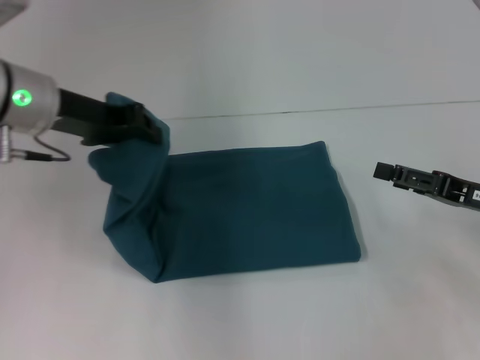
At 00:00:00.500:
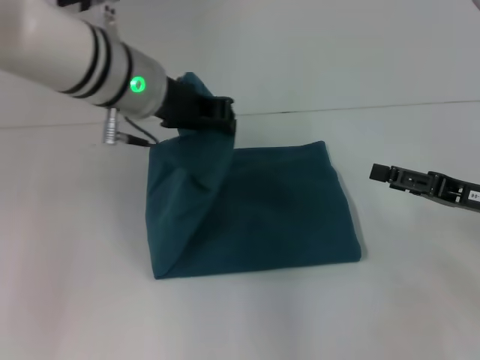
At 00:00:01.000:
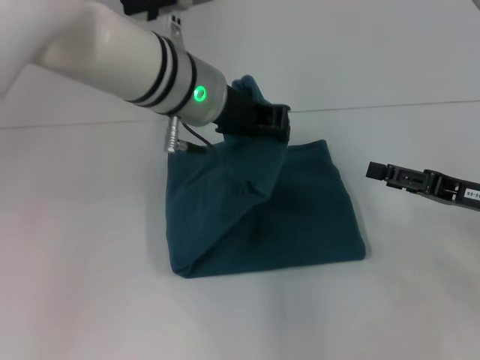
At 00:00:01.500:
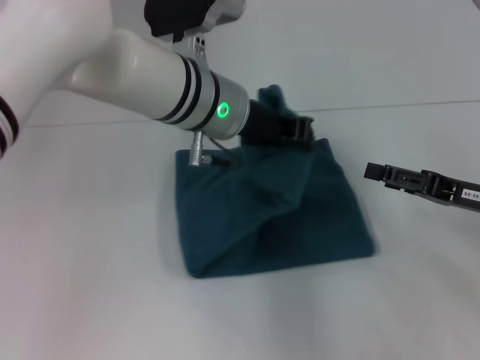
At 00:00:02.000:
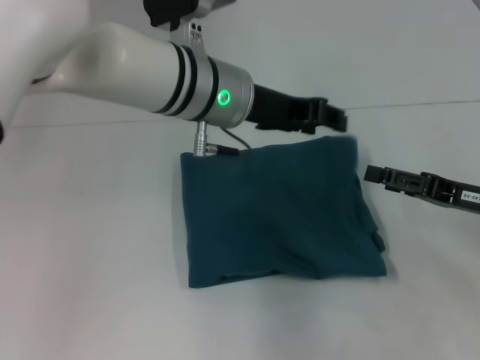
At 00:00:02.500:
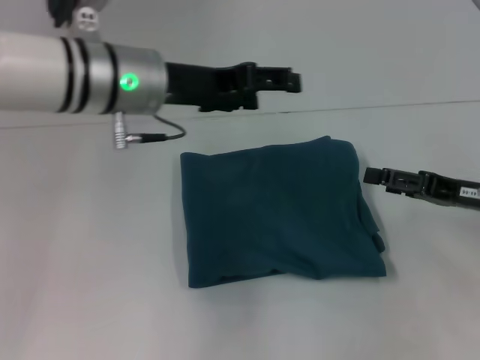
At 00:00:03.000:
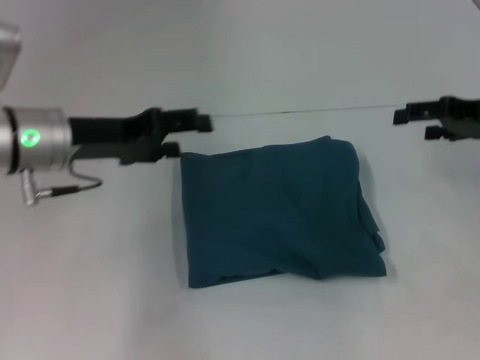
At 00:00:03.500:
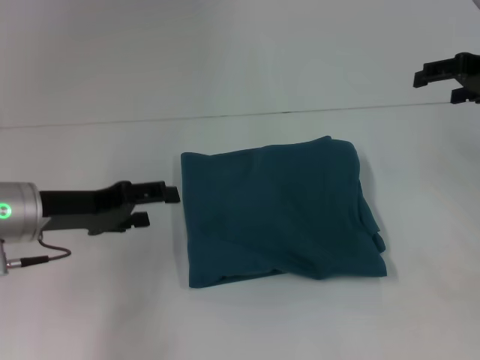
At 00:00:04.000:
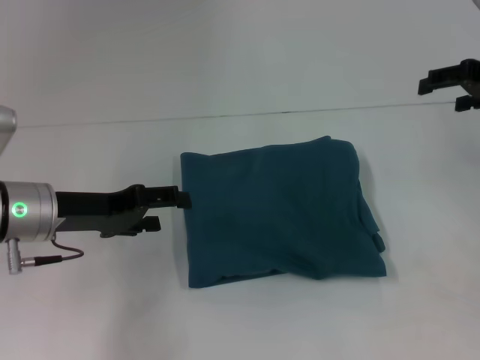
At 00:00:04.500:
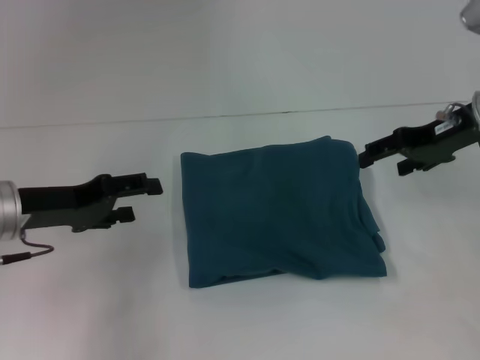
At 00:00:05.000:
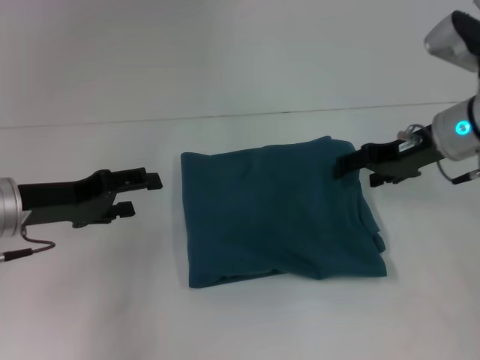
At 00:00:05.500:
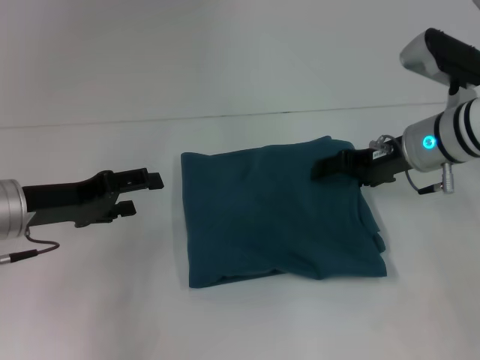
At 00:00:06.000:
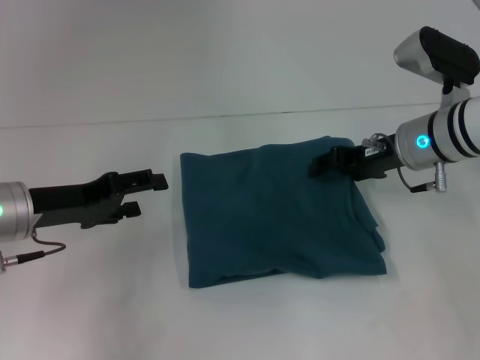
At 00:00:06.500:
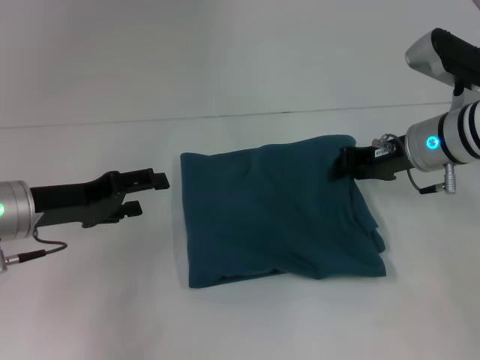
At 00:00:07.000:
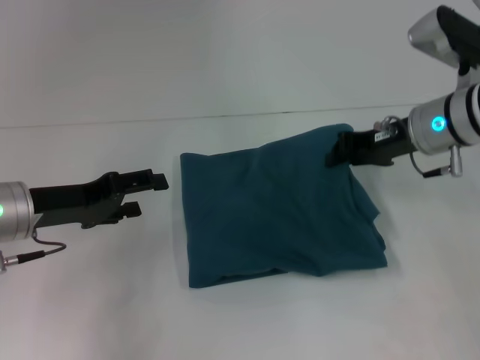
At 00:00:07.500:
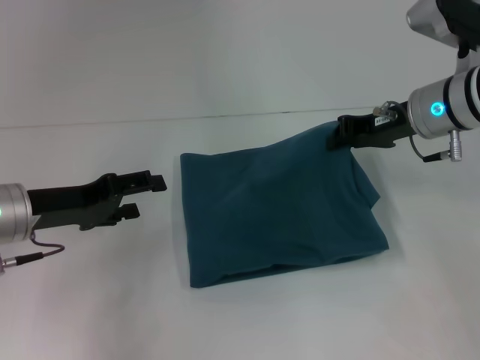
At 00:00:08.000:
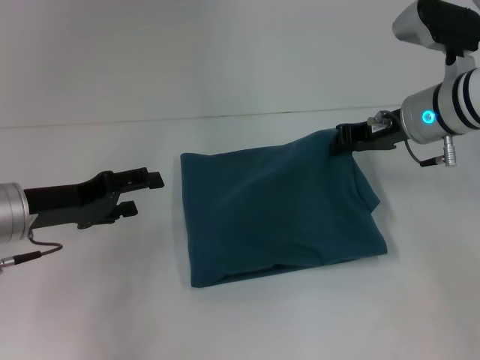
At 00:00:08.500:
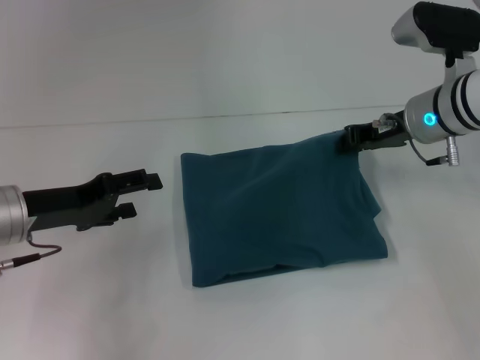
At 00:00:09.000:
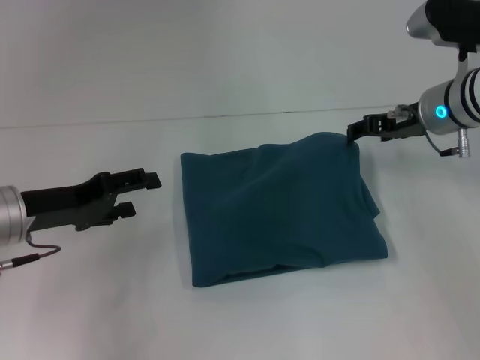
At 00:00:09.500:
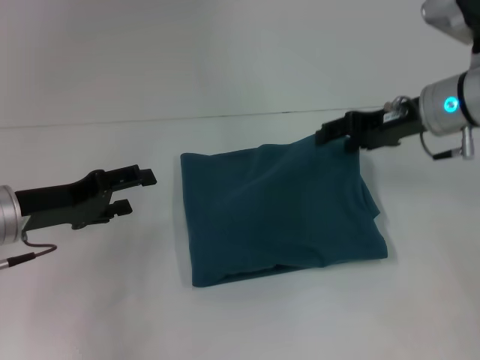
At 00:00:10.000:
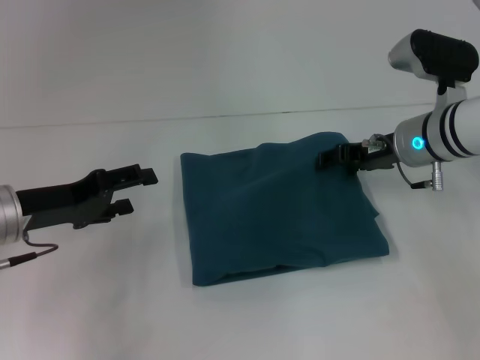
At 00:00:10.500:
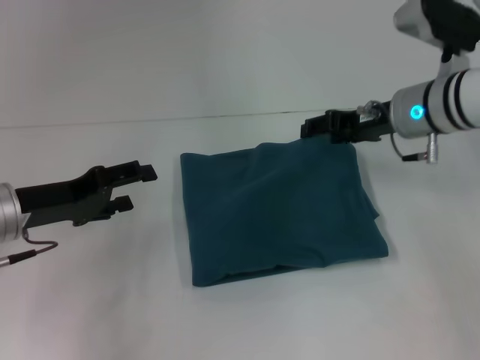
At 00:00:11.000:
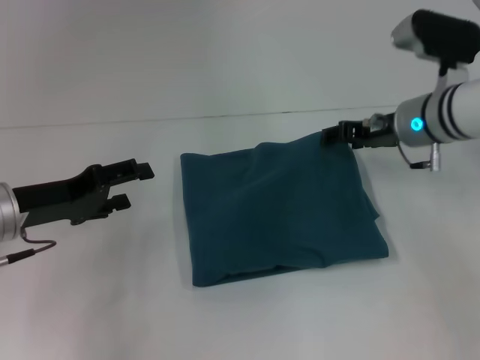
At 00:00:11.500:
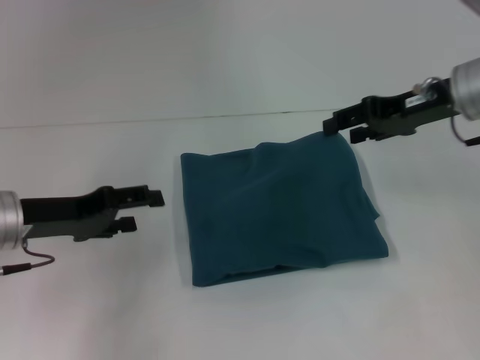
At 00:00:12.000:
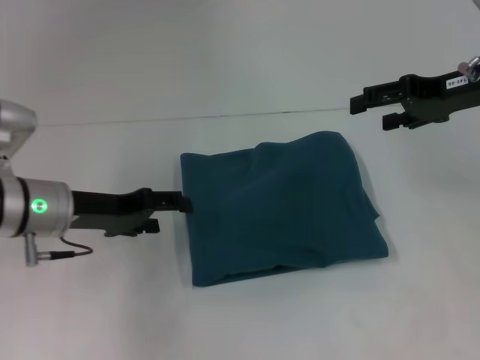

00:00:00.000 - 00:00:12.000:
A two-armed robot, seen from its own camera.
Step, 00:00:00.000 - 00:00:02.000: Fold the clothes to the left.
00:00:00.000 - 00:00:02.000: The left gripper shifts approximately 15 cm to the right.
00:00:02.000 - 00:00:04.000: The left gripper shifts roughly 20 cm to the left and downward, and opens, while the right gripper shifts approximately 15 cm upward and forward.
00:00:04.000 - 00:00:06.000: The right gripper travels to the left and downward by about 15 cm.
00:00:06.000 - 00:00:08.000: The right gripper closes.
00:00:08.000 - 00:00:10.000: The right gripper opens.
00:00:10.000 - 00:00:12.000: The right gripper moves upward and to the right, about 10 cm.

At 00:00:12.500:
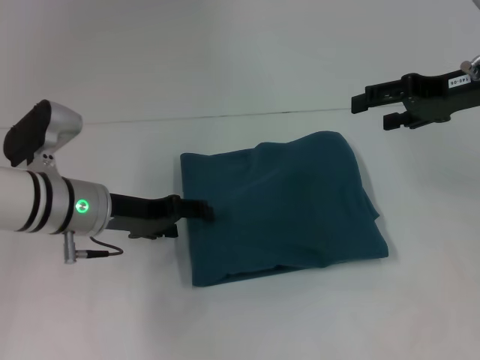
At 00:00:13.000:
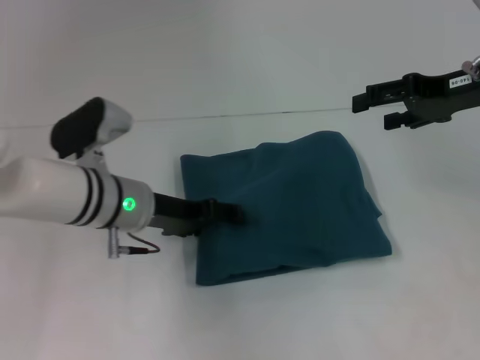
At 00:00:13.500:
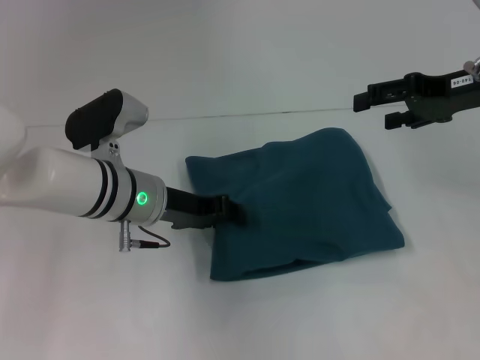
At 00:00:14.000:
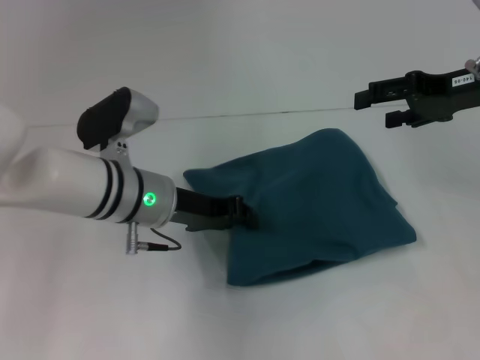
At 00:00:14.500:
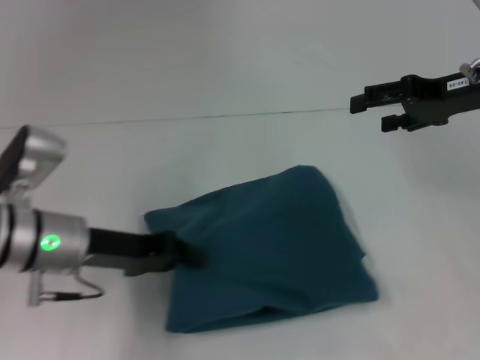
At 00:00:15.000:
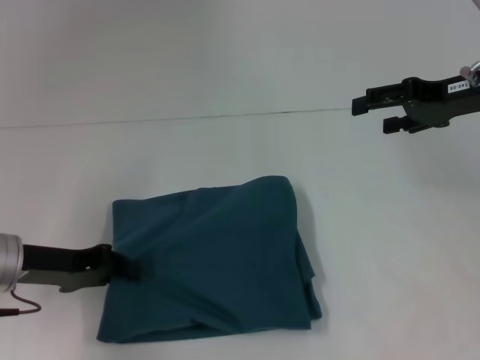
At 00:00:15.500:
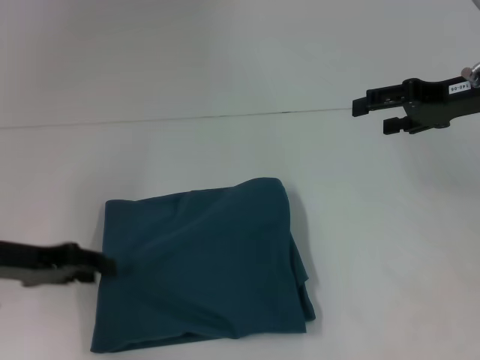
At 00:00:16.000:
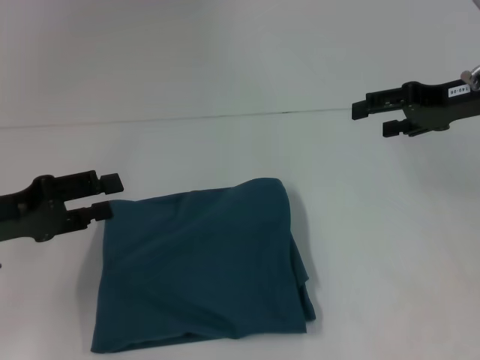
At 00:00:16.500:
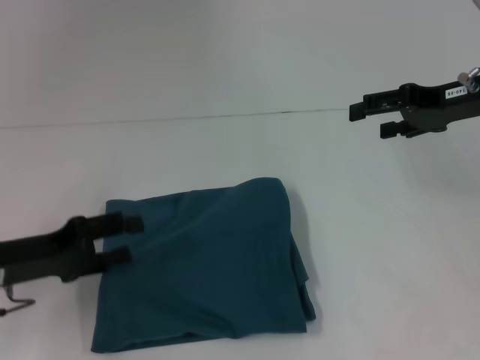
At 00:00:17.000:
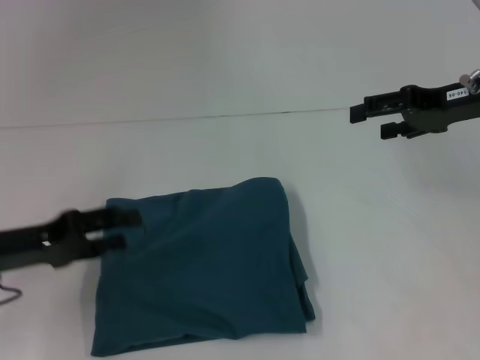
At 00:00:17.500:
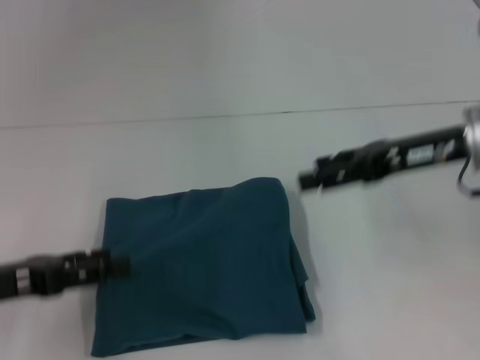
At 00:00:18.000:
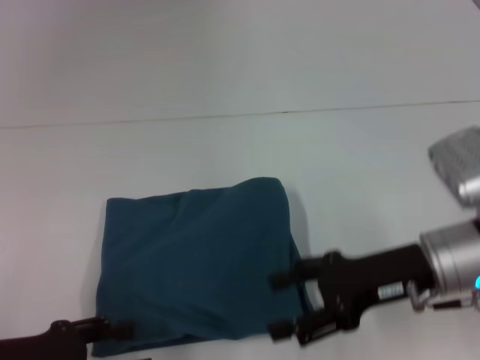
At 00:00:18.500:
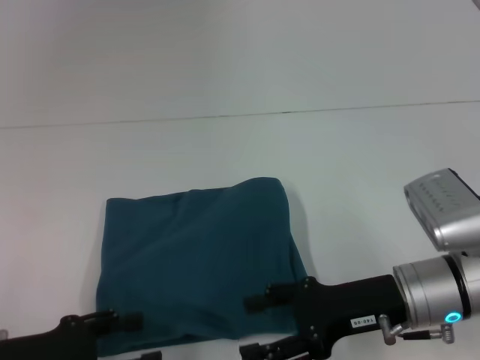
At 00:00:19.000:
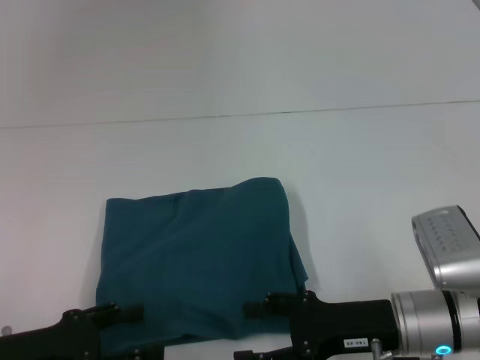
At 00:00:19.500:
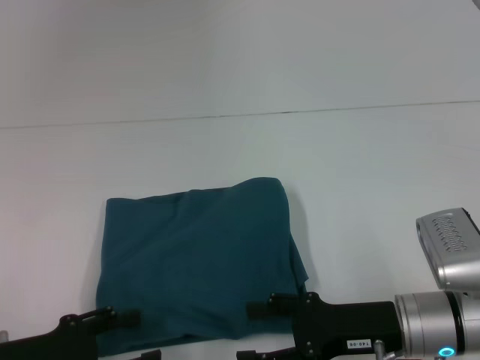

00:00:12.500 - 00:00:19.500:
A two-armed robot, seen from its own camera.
00:00:12.500 - 00:00:14.500: The left gripper goes to the right and returns, roughly 5 cm each way, and closes up.
00:00:14.500 - 00:00:16.000: The left gripper moves to the left, roughly 10 cm, and opens its fingers.
00:00:16.000 - 00:00:17.500: The right gripper is displaced to the left by approximately 5 cm.
00:00:17.500 - 00:00:19.500: The right gripper is displaced downward and backward by about 15 cm; the left gripper heads downward, covering approximately 5 cm.

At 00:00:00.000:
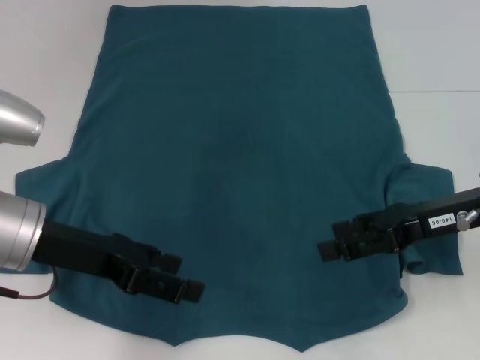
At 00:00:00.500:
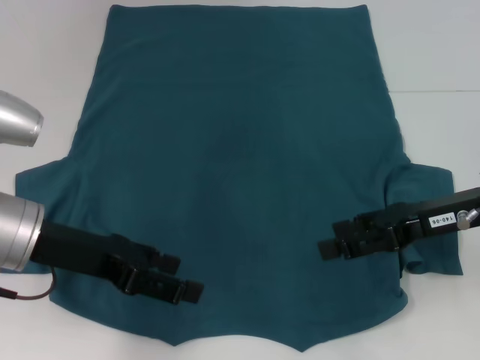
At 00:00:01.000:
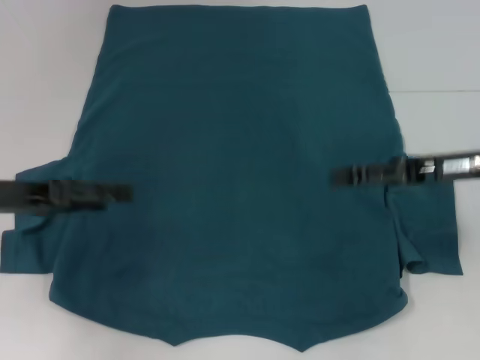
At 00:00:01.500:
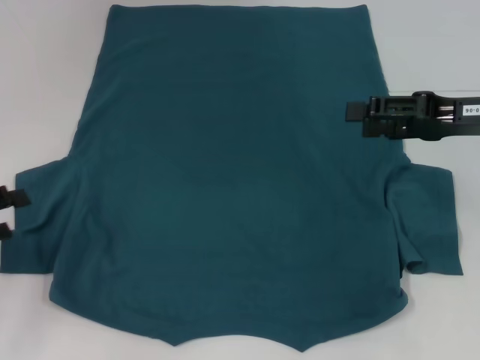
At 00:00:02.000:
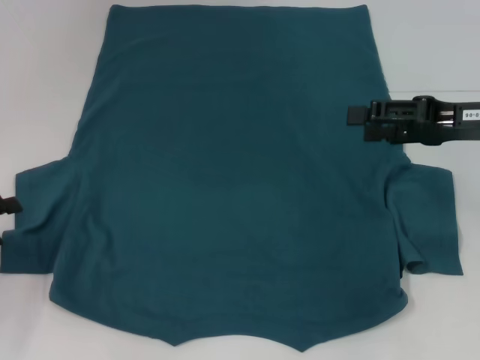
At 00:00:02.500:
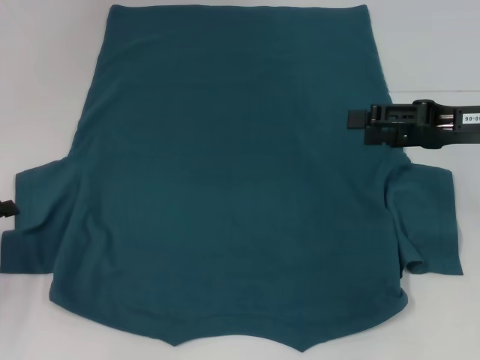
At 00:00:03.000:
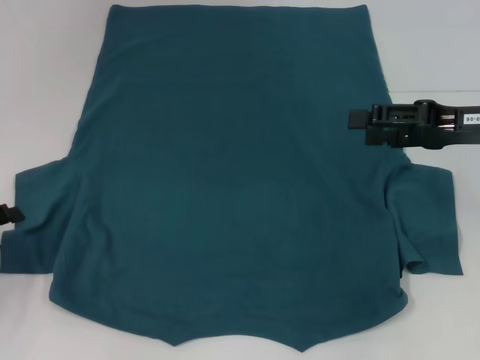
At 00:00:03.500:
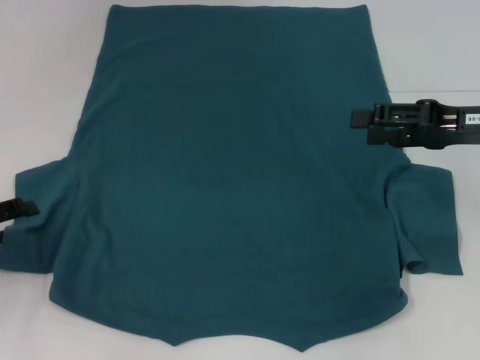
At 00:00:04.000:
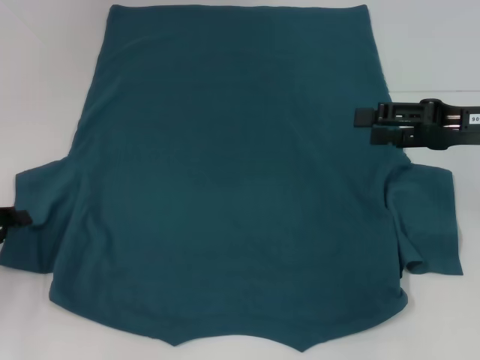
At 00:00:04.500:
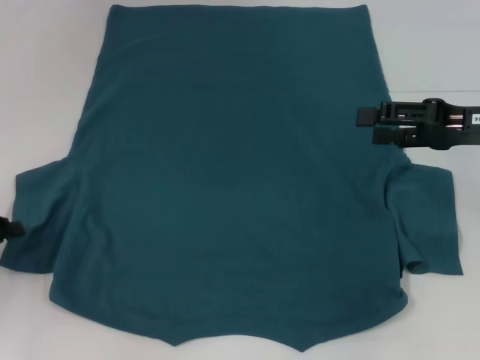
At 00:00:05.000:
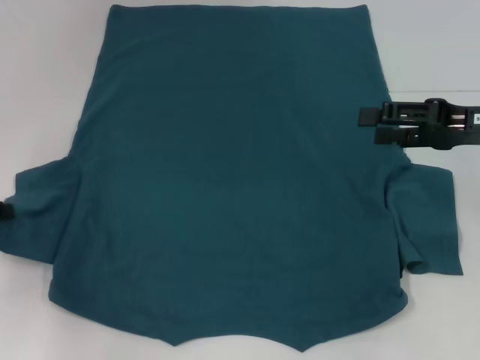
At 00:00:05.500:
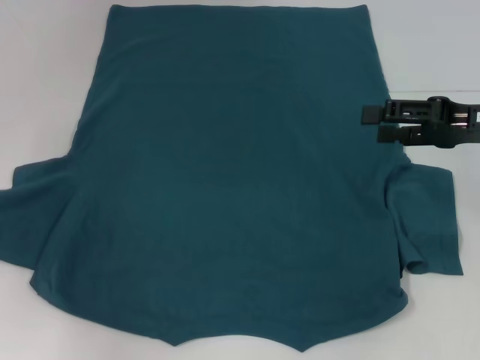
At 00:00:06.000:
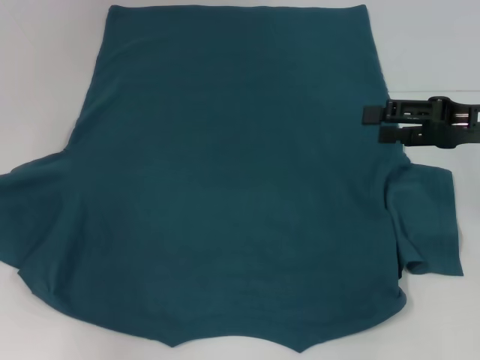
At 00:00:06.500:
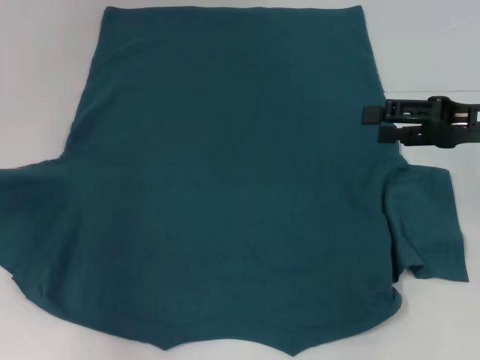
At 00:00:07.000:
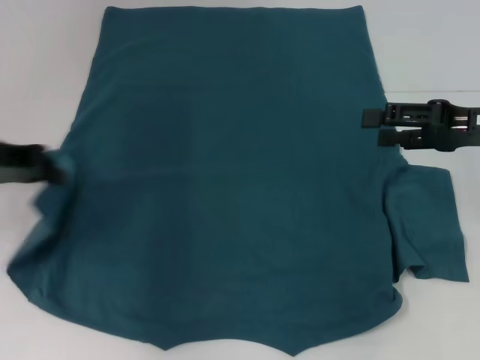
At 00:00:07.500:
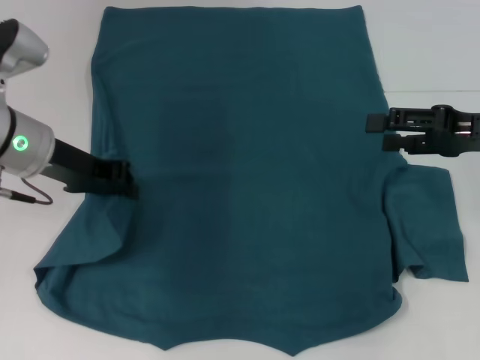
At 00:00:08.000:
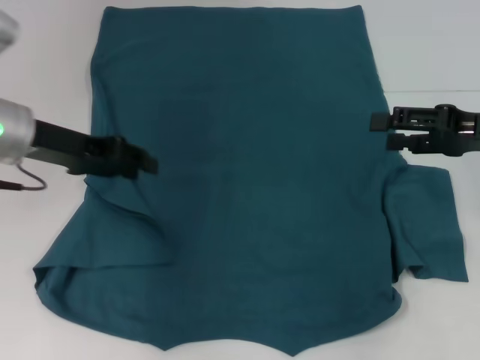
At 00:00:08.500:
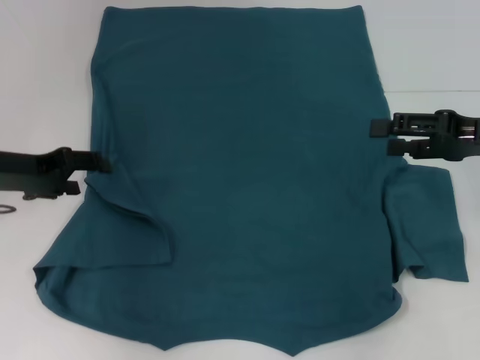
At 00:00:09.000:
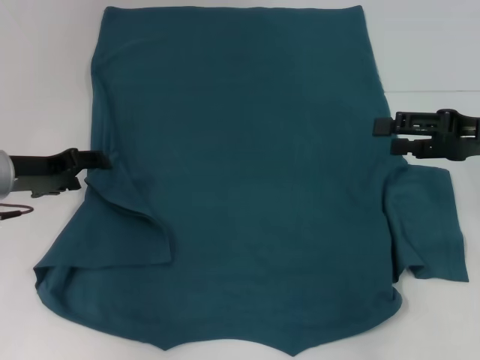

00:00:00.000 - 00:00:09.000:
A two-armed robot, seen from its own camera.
00:00:00.000 - 00:00:02.000: The right gripper changes place by approximately 5 cm. The left gripper goes roughly 15 cm to the left.
00:00:04.500 - 00:00:07.000: The left gripper travels upward, to the right and forward by roughly 15 cm.
00:00:07.000 - 00:00:09.000: The left gripper shifts approximately 10 cm downward, and opens.
